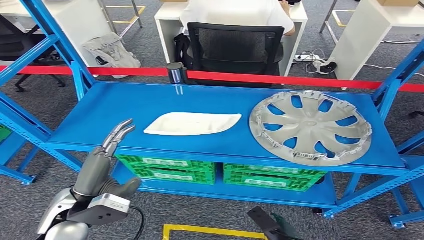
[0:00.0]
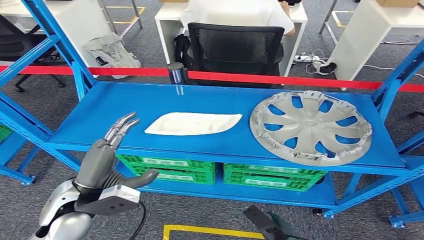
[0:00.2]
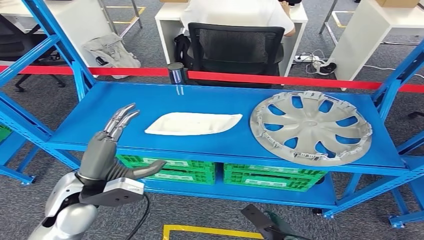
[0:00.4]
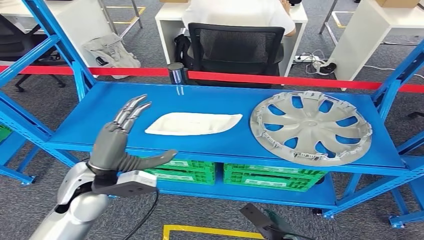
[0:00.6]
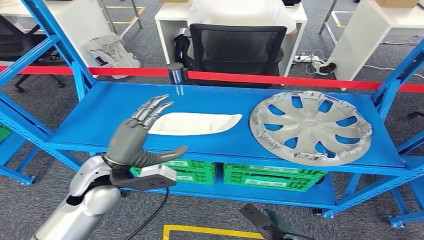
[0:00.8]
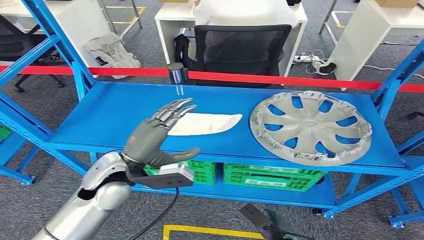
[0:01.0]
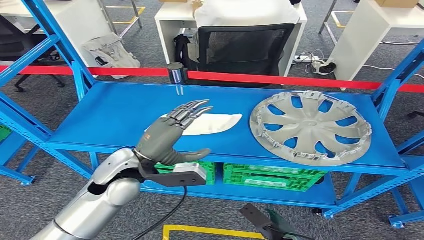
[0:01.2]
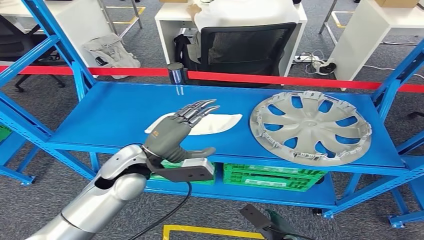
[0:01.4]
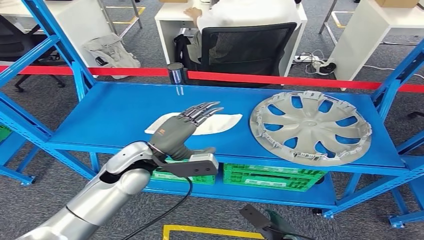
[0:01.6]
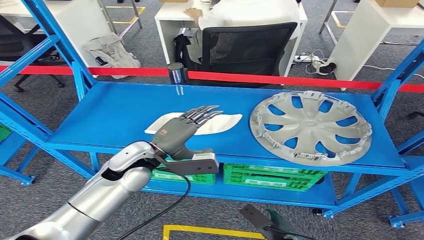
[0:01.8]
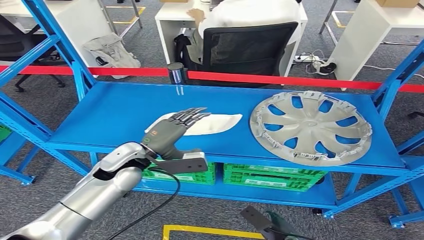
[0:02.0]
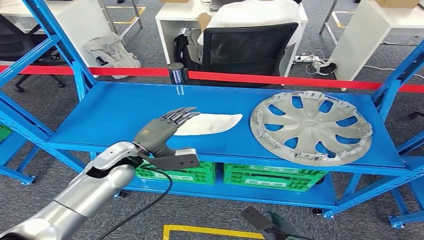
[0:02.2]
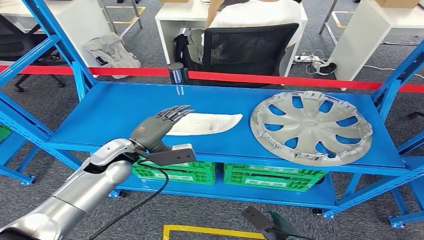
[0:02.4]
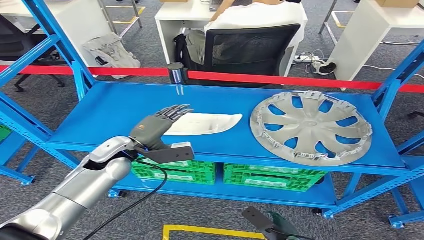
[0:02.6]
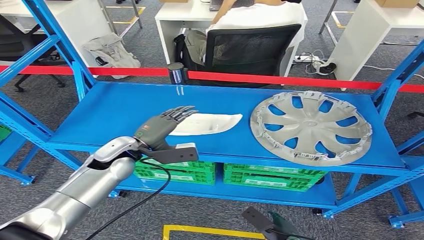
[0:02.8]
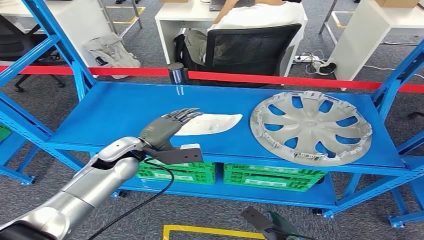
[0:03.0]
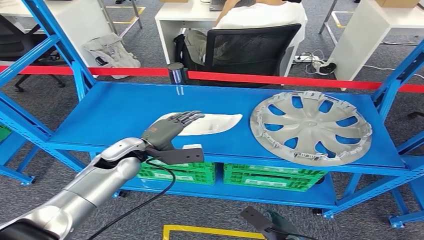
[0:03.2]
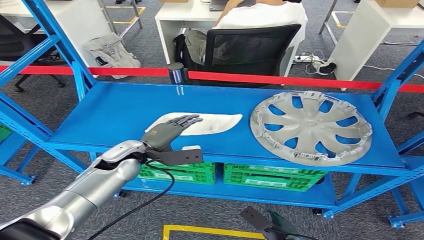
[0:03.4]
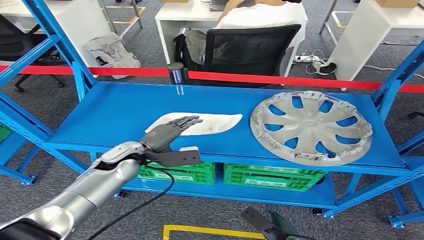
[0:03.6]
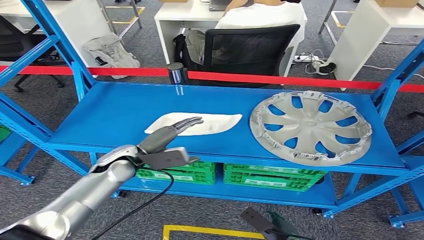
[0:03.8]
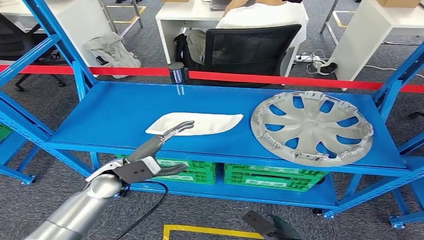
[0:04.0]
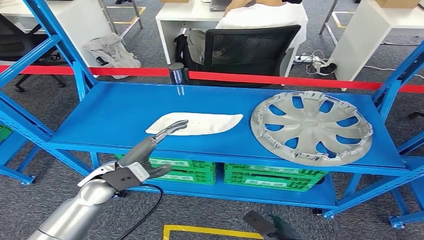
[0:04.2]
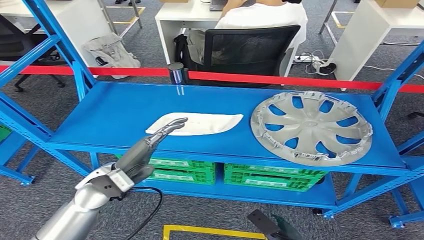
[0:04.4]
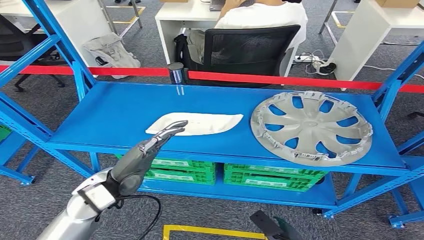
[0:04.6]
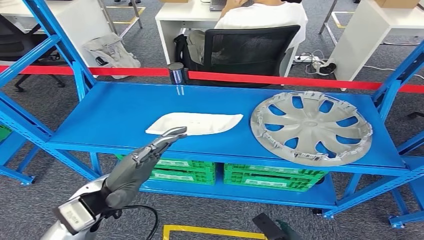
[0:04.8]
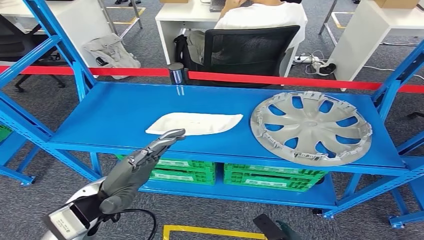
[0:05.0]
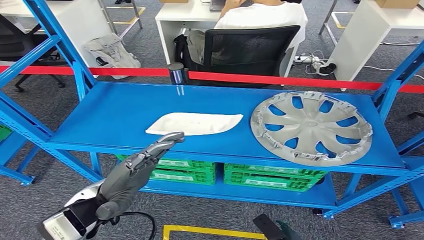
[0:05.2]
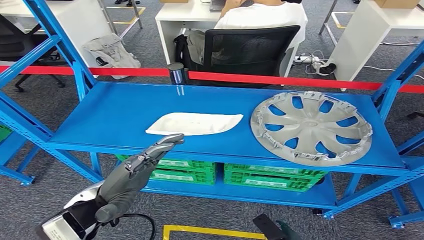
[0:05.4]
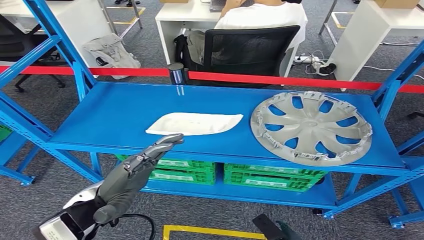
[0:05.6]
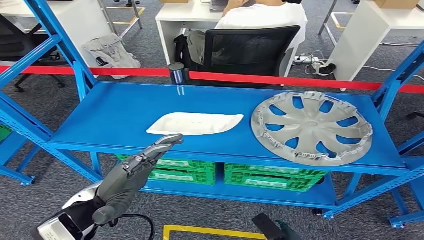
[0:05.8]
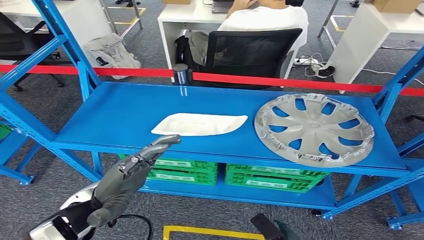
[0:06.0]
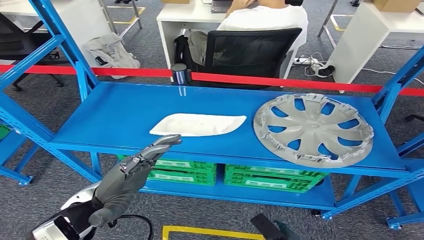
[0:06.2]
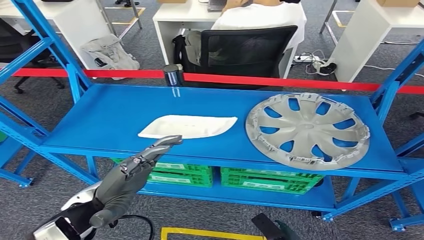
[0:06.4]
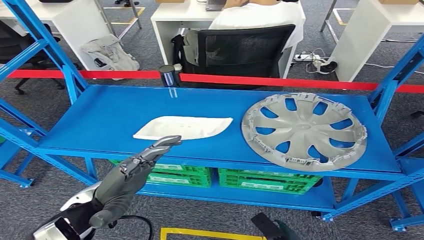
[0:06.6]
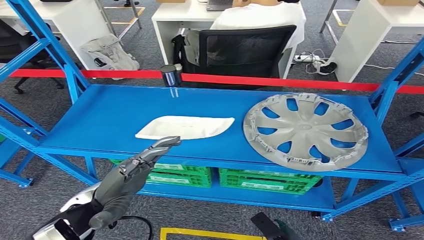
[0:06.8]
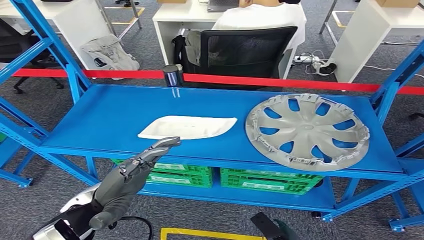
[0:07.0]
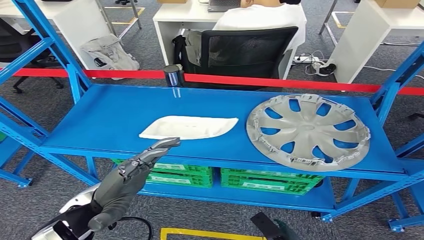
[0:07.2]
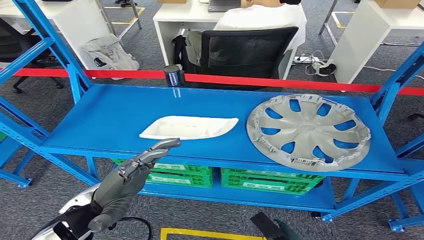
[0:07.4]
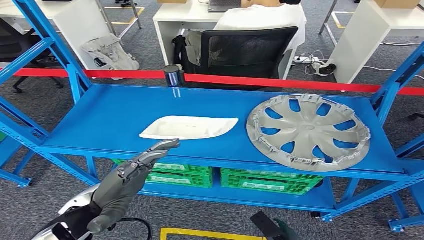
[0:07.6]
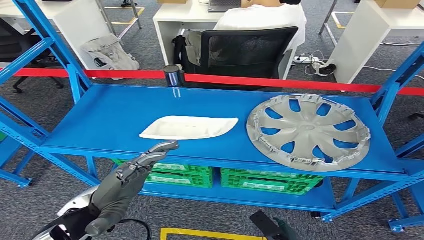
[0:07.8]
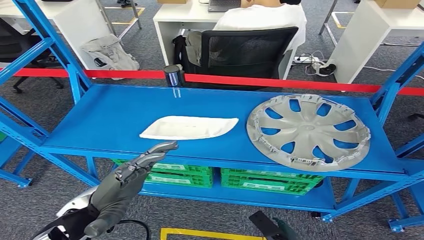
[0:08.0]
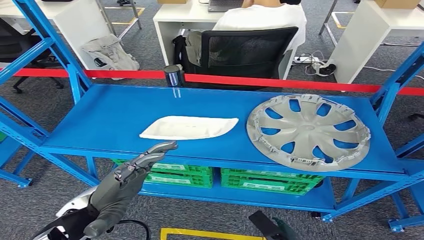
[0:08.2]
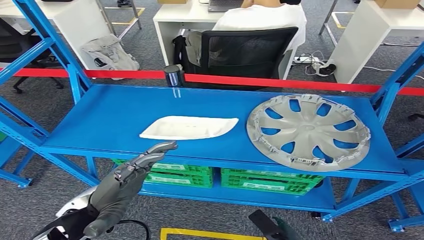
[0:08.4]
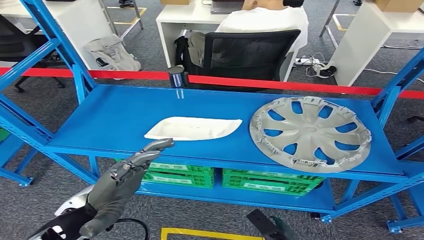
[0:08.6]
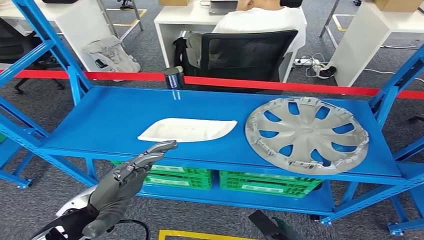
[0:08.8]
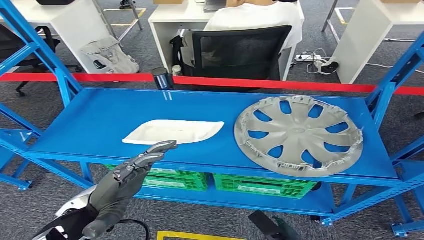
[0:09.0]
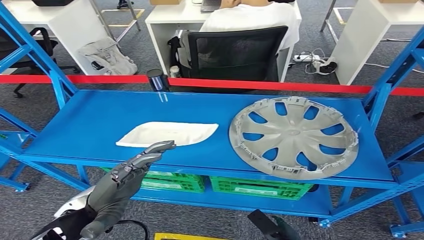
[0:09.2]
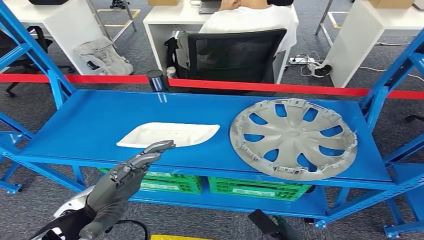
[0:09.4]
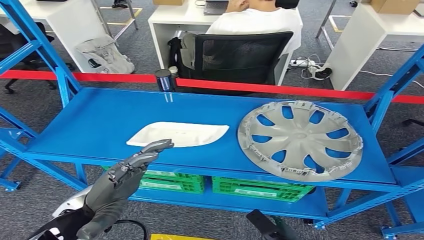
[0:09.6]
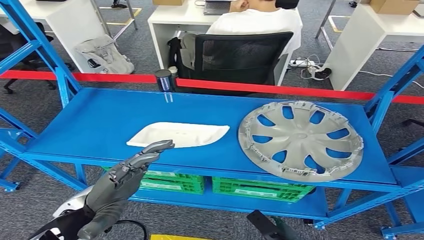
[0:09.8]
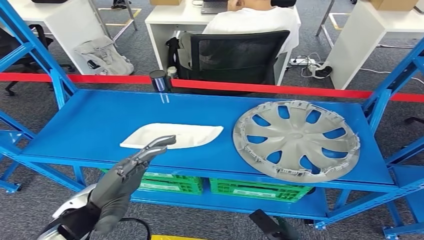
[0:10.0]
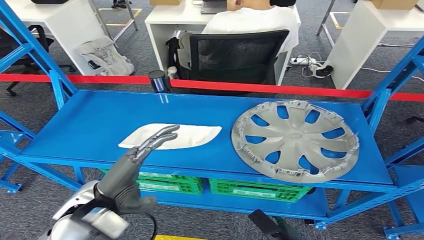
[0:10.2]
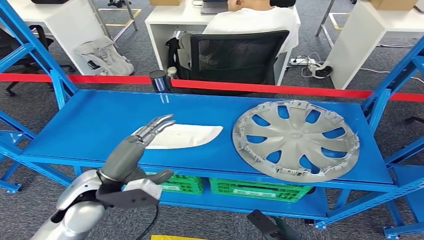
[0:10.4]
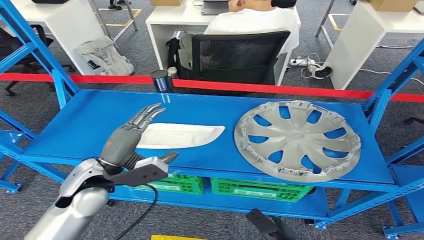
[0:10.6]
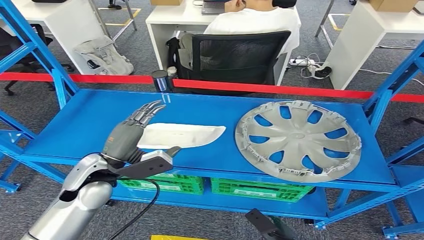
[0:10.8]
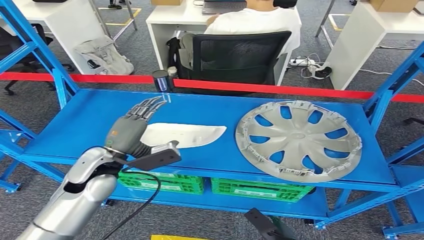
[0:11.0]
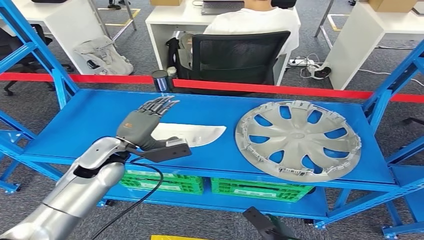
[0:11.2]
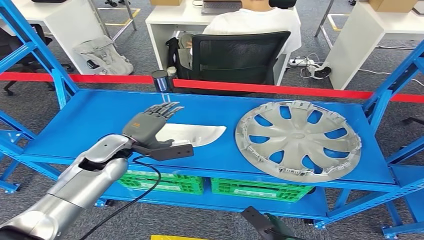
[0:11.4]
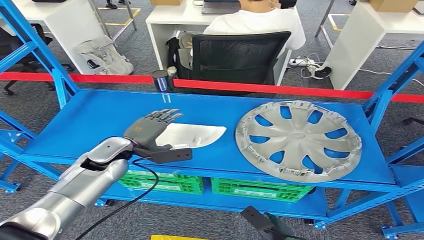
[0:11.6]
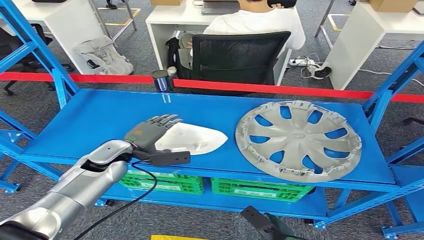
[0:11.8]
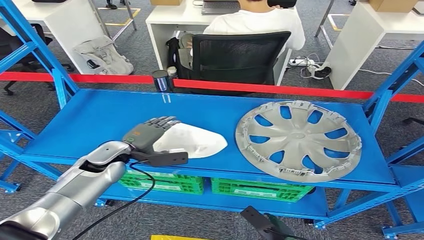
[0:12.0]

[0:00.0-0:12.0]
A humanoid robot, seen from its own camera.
0:00.0 to 0:01.6: The left hand travels forward and to the right by some 15 cm.
0:01.6 to 0:03.0: The left hand moves to the left, roughly 5 cm.
0:03.0 to 0:04.4: The left hand goes some 10 cm backward.
0:10.4 to 0:12.0: The left hand travels forward and downward by some 10 cm.

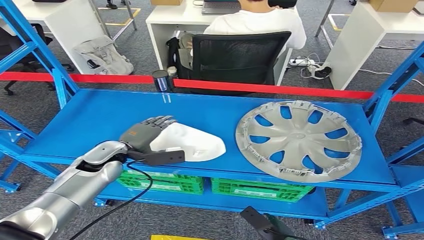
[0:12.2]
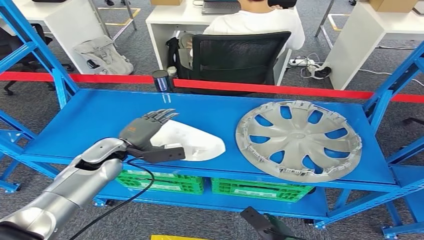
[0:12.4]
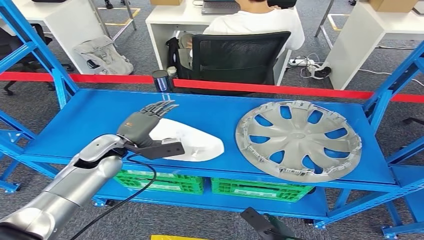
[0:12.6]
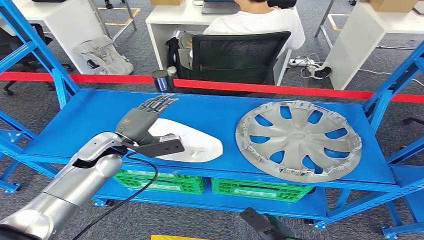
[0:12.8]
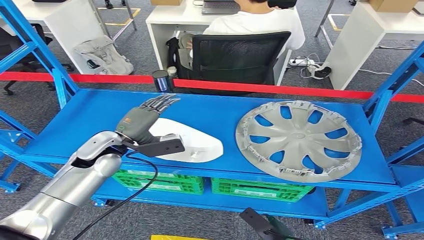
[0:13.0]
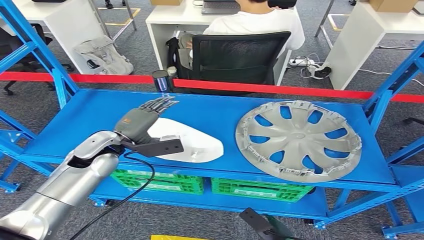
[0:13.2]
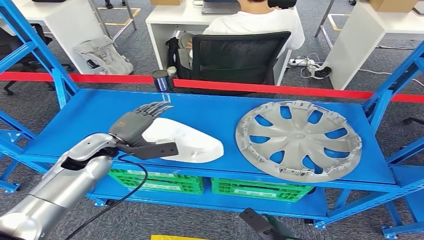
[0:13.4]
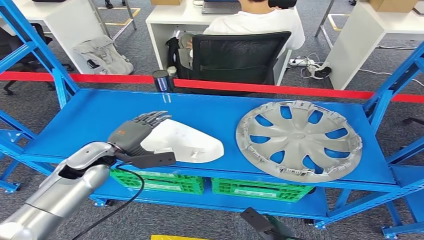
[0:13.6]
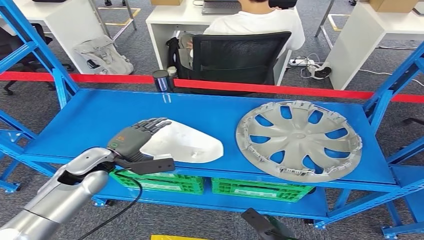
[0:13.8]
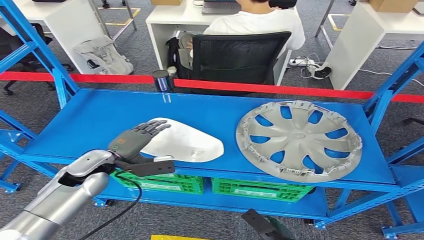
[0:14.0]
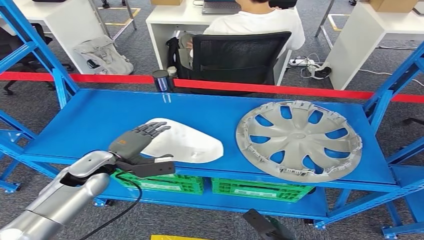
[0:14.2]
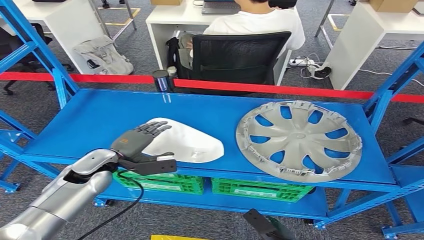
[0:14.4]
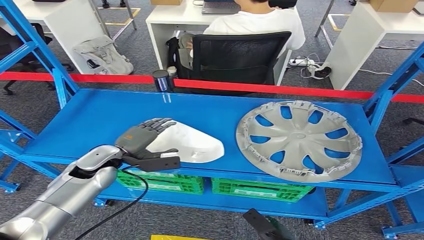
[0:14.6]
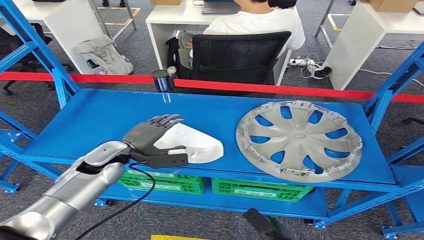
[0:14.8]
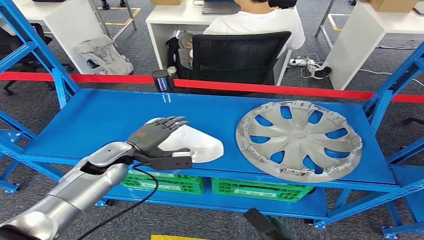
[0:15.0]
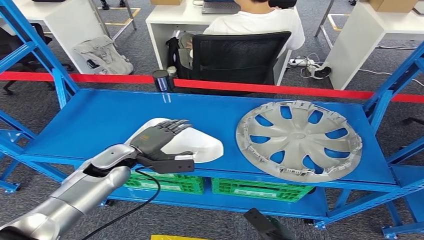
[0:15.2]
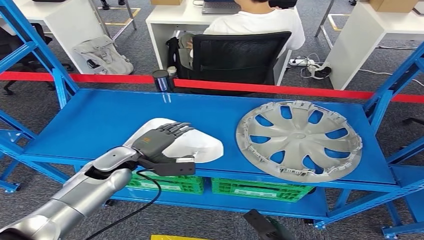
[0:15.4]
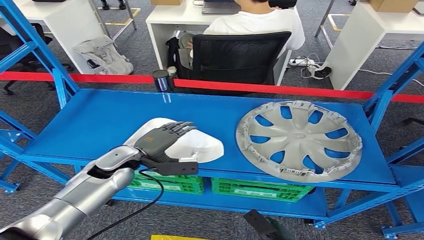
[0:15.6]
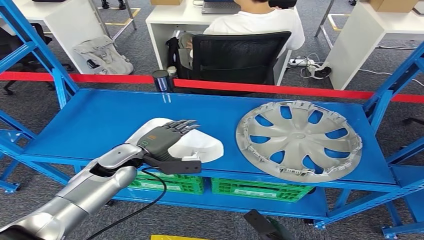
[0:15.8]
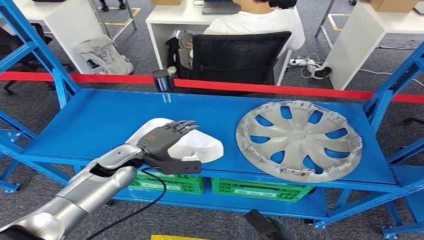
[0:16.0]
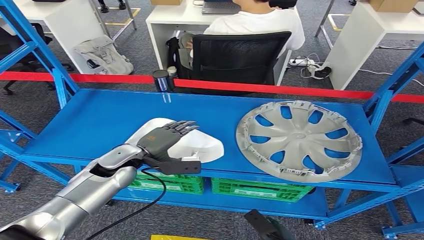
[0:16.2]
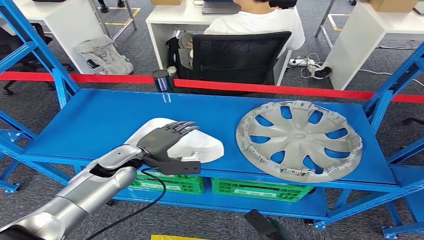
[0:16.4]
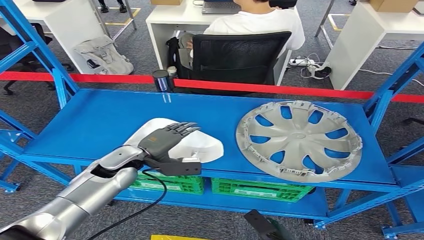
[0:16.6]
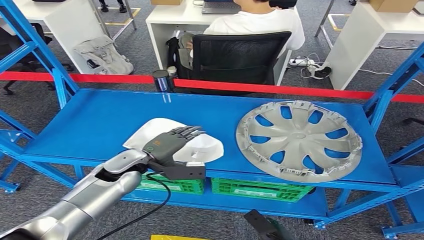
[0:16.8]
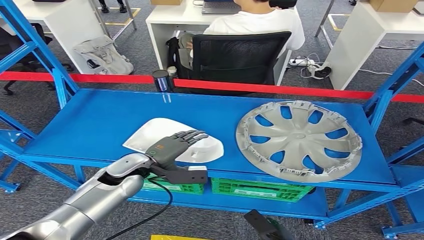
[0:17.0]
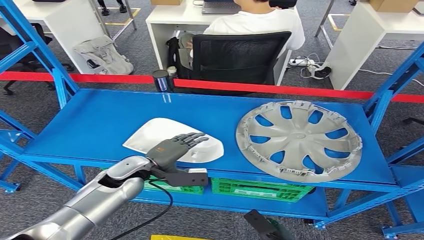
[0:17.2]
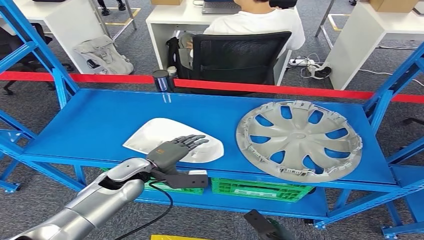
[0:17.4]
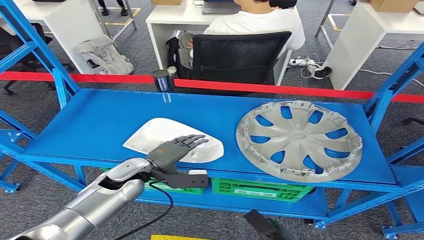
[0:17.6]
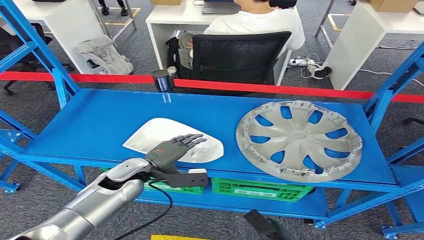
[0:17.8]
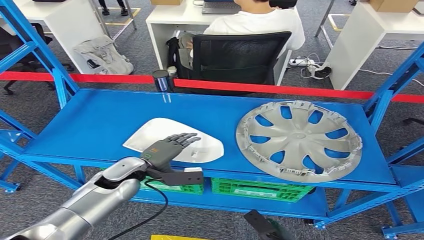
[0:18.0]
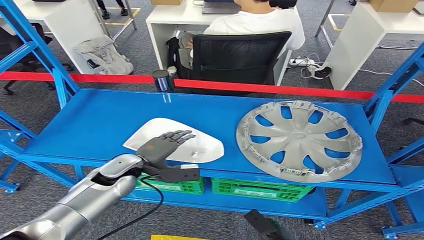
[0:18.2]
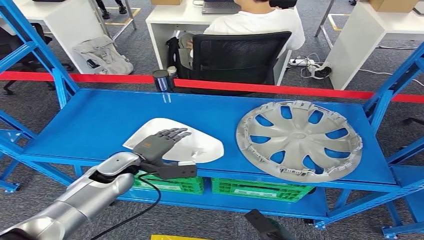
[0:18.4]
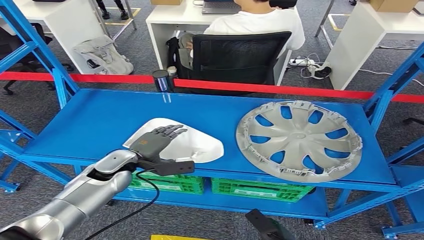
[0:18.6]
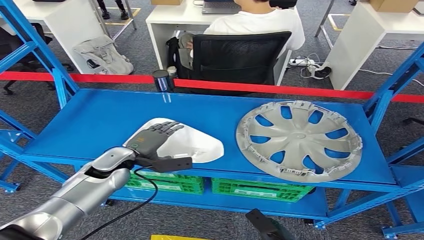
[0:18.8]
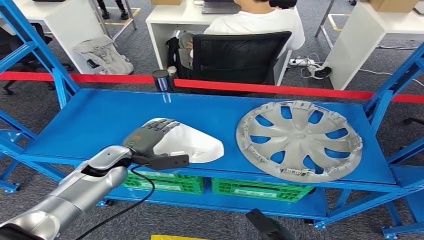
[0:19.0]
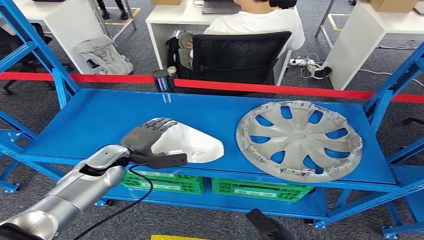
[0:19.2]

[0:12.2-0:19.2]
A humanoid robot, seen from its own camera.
0:13.6 to 0:16.4: The hands stay close to where they were, moving slightly.
0:16.4 to 0:17.8: The hands stay close to where they were, moving slightly.
0:17.8 to 0:19.2: The left hand heads to the left, covering about 5 cm.
